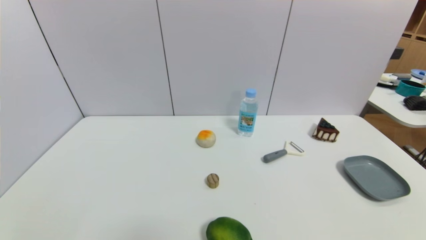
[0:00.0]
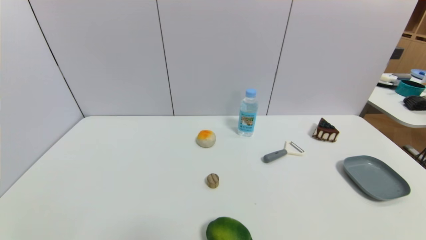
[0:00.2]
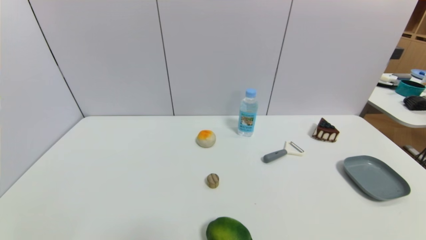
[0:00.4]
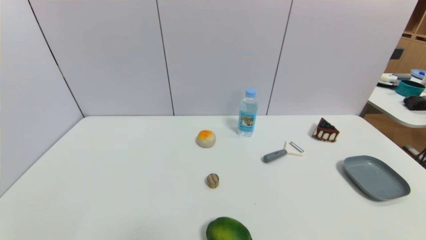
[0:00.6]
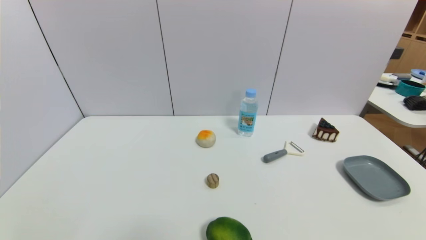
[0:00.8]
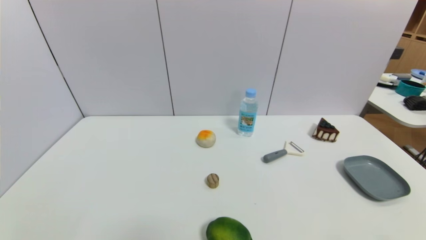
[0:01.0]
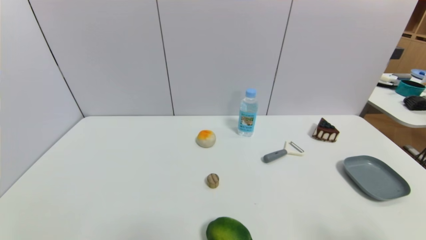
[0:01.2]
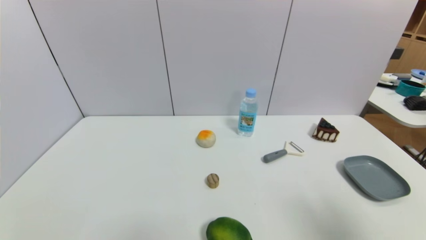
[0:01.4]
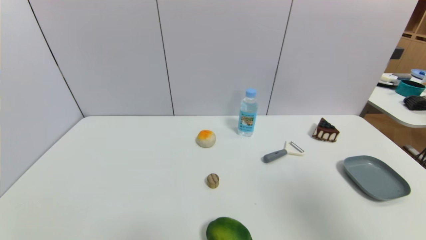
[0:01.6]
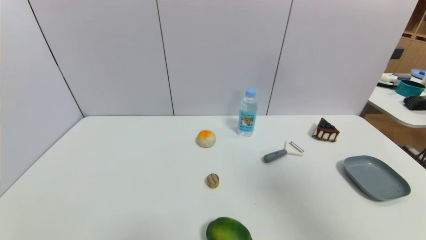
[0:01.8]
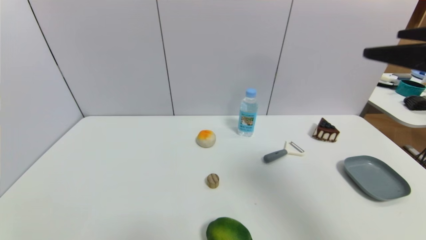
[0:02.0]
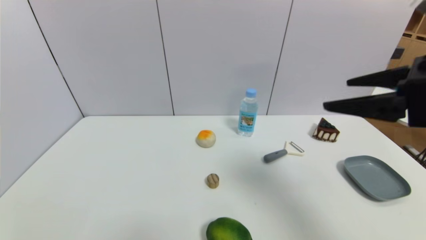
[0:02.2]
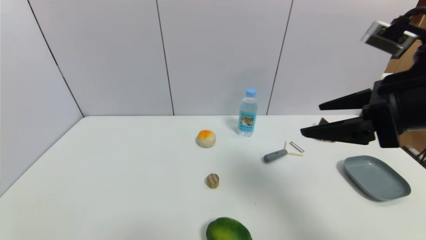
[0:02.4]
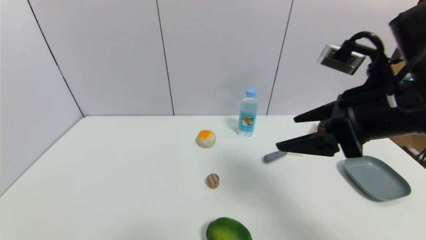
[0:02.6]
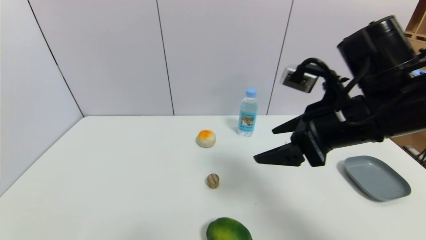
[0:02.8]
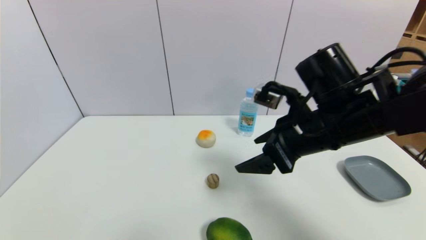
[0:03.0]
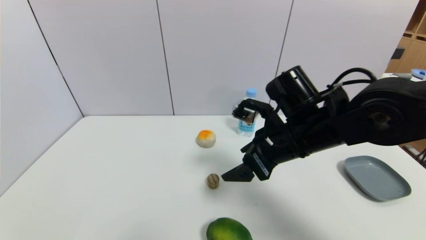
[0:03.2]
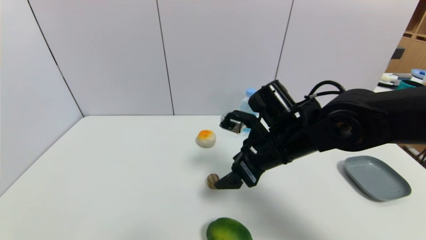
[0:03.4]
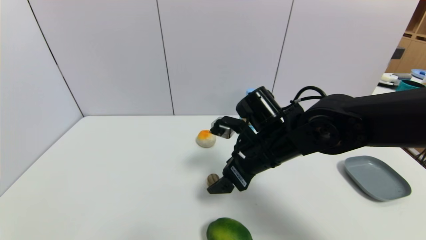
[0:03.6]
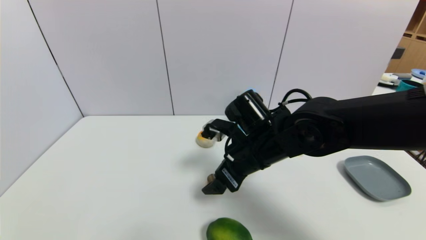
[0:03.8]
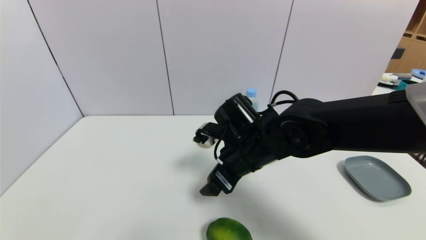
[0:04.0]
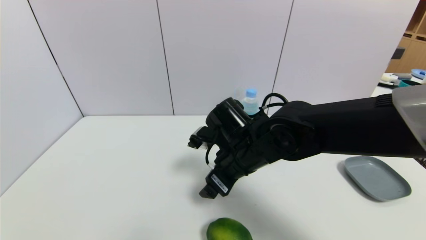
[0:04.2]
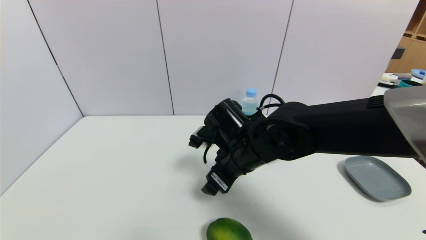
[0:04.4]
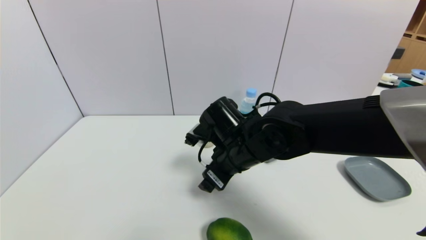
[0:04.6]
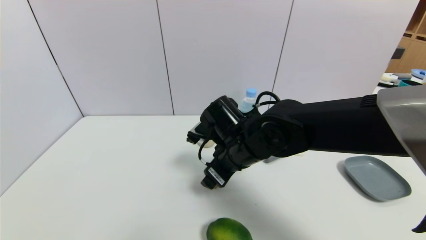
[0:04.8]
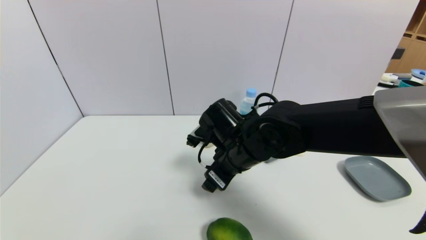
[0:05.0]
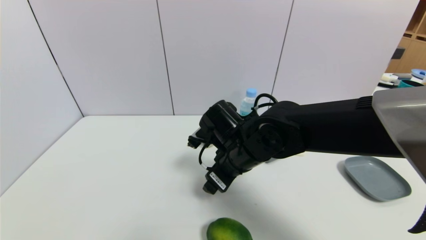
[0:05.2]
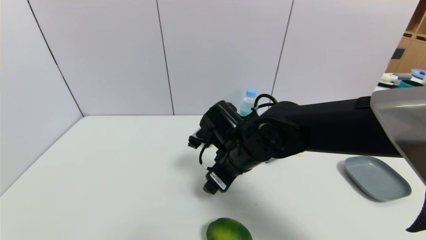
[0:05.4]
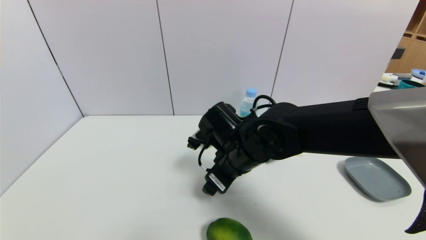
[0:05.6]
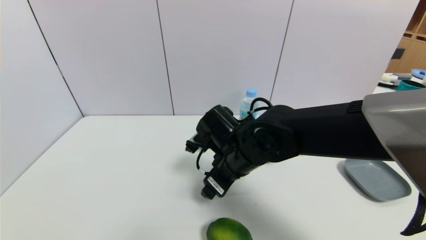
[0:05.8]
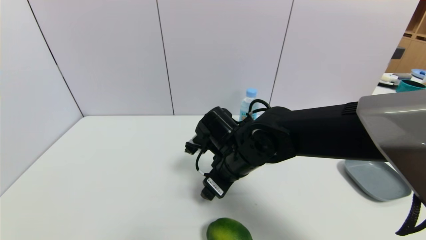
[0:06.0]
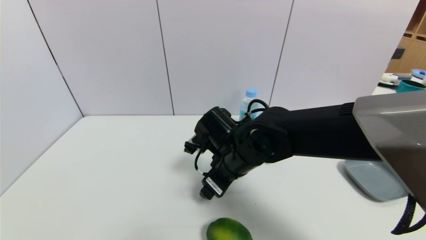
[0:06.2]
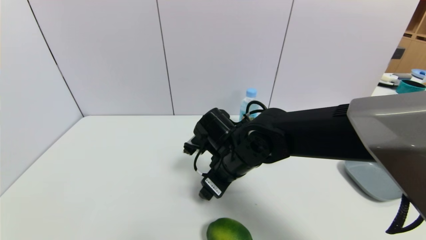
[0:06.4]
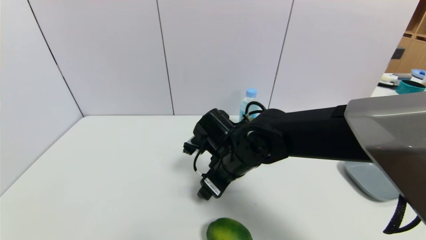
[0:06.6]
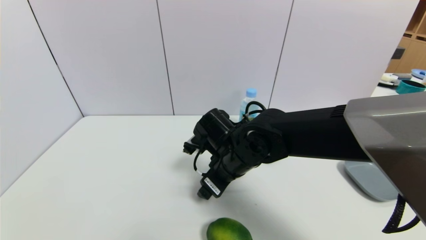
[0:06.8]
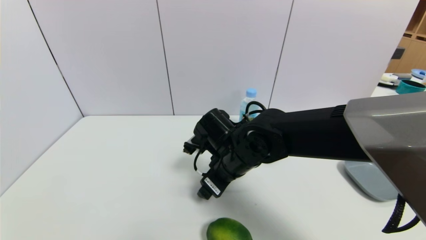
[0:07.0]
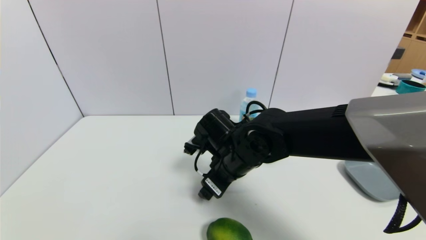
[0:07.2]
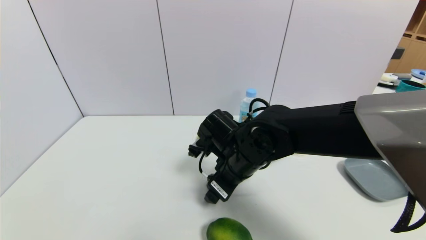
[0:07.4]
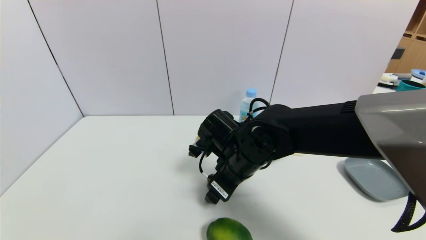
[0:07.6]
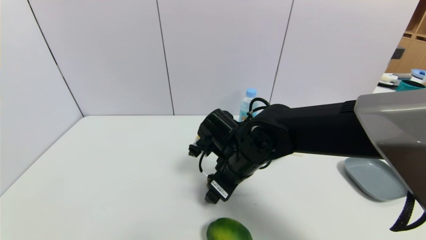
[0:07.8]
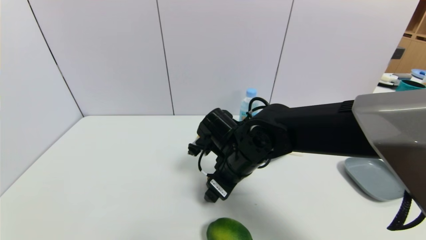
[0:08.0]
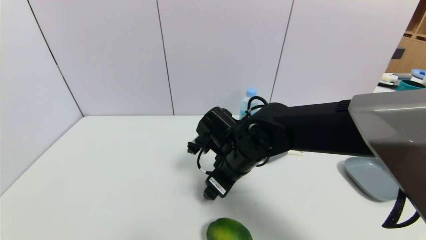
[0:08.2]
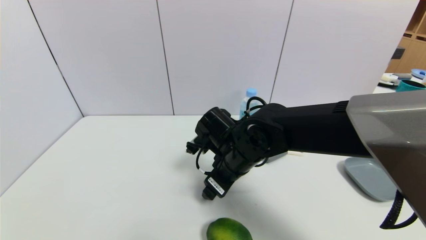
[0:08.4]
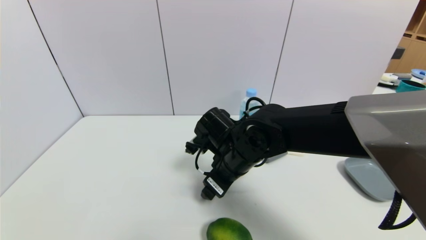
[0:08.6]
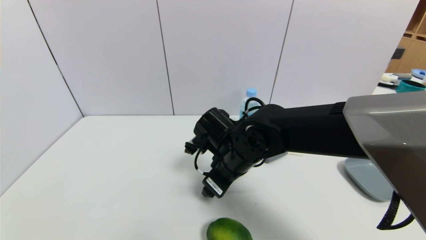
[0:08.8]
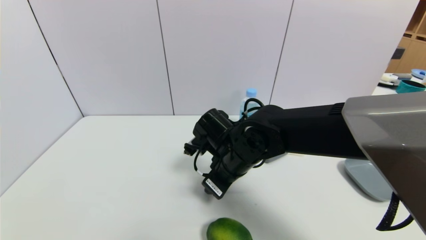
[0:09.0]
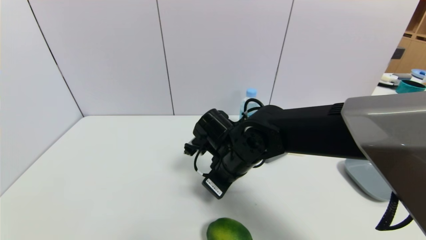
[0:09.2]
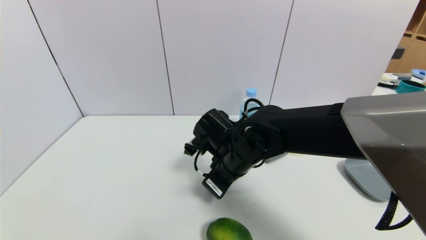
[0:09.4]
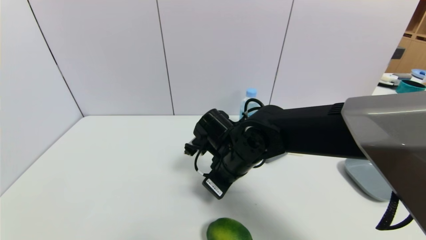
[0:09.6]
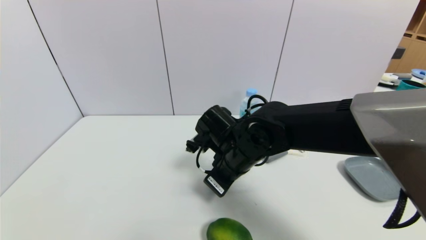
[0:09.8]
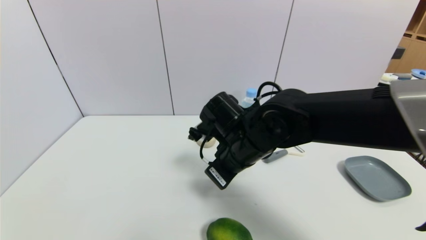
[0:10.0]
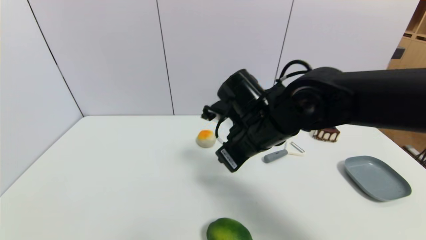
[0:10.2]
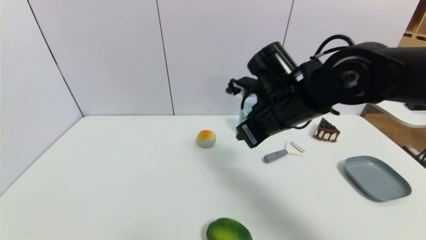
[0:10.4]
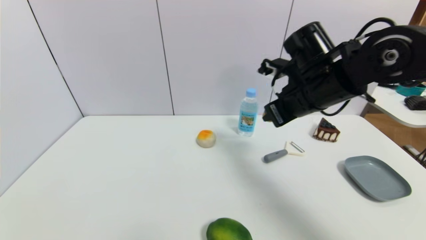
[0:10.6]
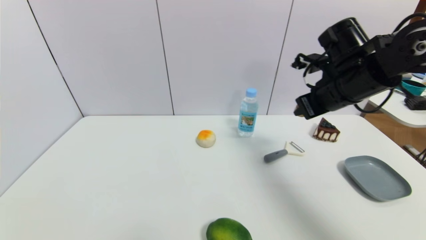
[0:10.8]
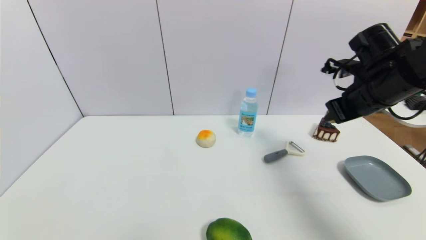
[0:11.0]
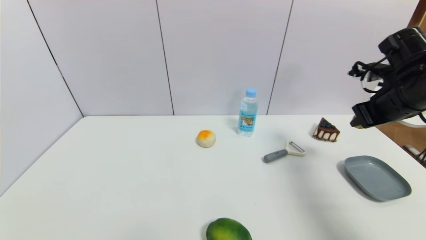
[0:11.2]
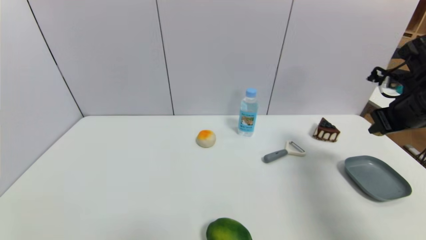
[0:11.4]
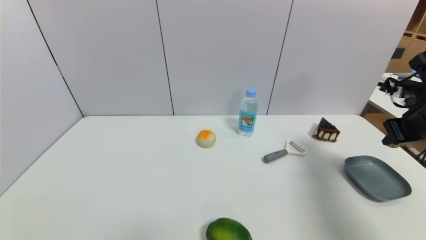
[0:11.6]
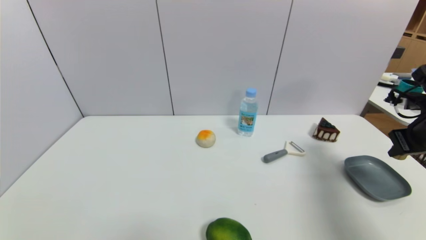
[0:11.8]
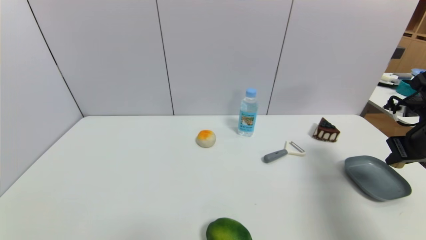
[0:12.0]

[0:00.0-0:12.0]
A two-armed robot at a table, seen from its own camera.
Task of the whole recording: use a gripper to pick the target object and place on the dish.
Step, 0:00.0 to 0:09.4: Grasp the round wooden block with the right gripper.
0:00.0 to 0:01.6: The right gripper moves upward and forward, approximately 30 cm.
0:01.6 to 0:03.0: The right gripper shifts approximately 25 cm to the left, forward and downward.
0:03.0 to 0:04.4: The right gripper heads to the left and downward, covering some 15 cm.
0:04.4 to 0:07.6: The grippers stay close to where they were, moving slightly.
0:07.6 to 0:09.0: The right gripper closes up.
0:09.0 to 0:10.4: The right gripper travels upward and to the right by approximately 15 cm, and closes up.
0:10.4 to 0:12.0: The right gripper travels to the right by roughly 25 cm.

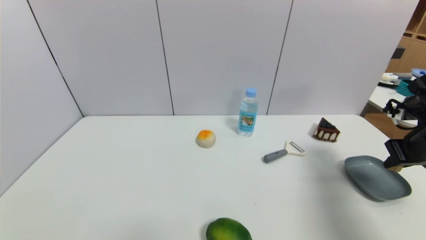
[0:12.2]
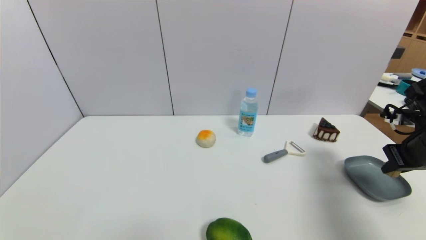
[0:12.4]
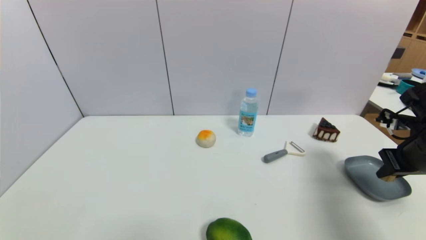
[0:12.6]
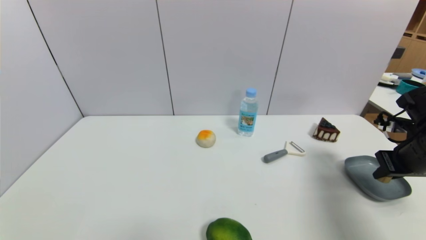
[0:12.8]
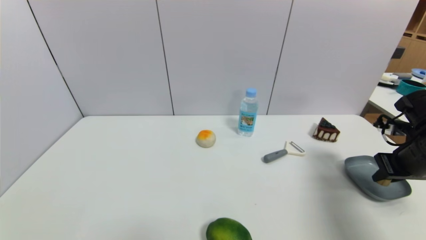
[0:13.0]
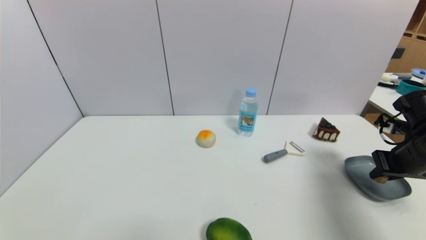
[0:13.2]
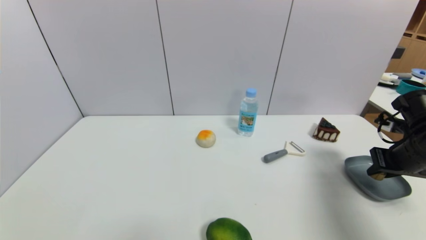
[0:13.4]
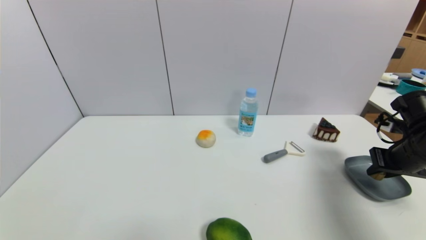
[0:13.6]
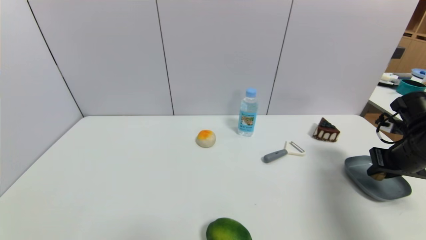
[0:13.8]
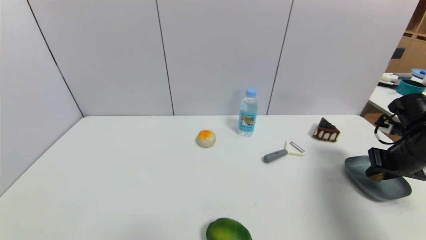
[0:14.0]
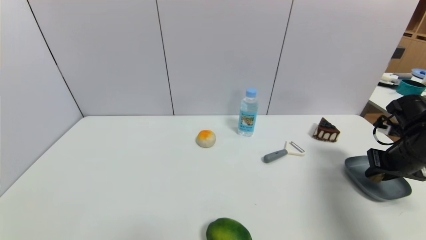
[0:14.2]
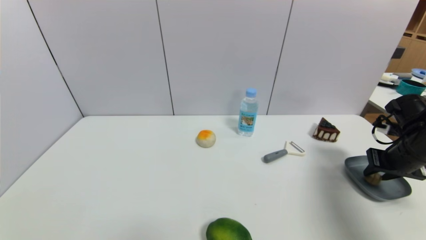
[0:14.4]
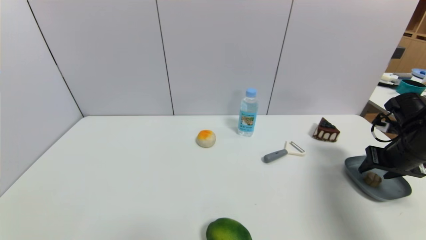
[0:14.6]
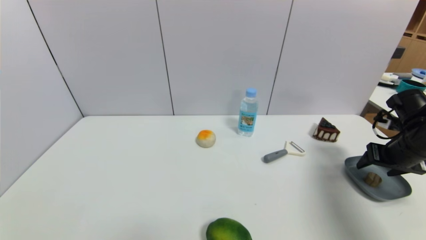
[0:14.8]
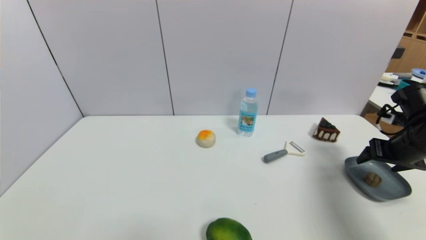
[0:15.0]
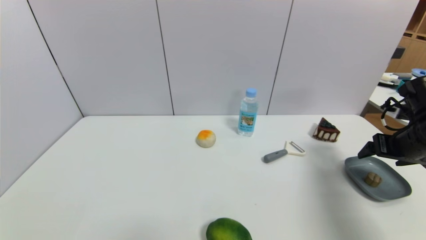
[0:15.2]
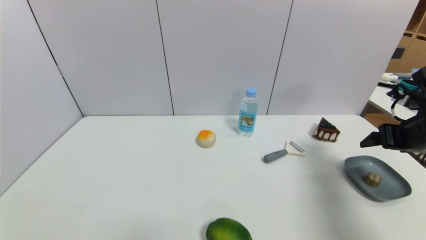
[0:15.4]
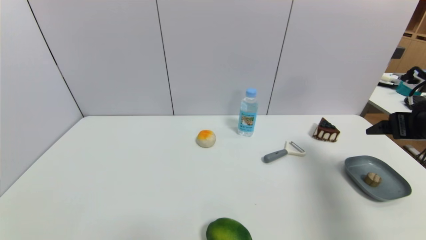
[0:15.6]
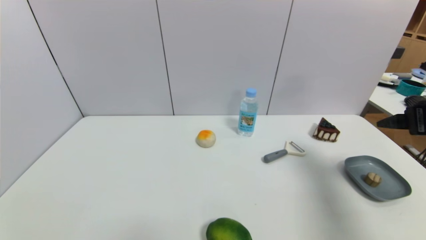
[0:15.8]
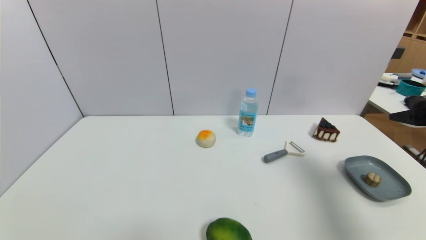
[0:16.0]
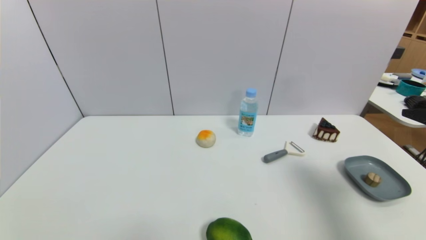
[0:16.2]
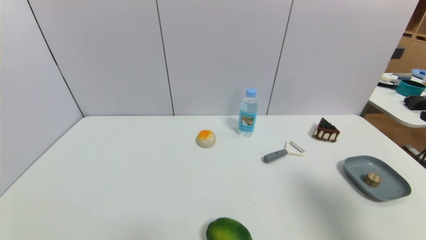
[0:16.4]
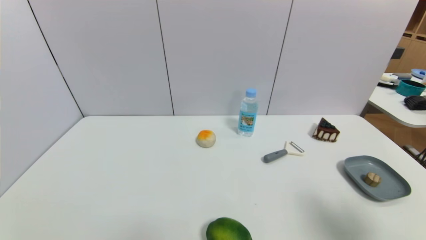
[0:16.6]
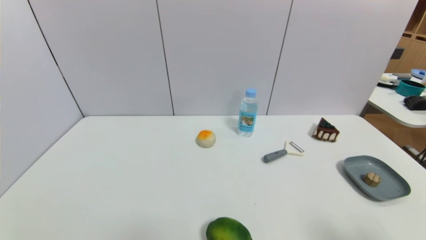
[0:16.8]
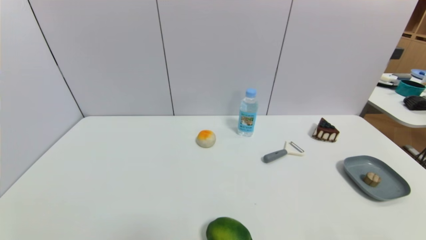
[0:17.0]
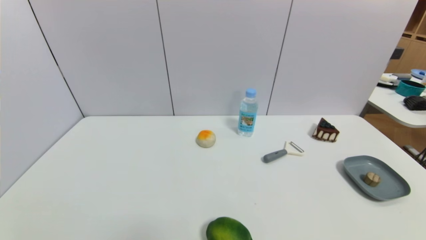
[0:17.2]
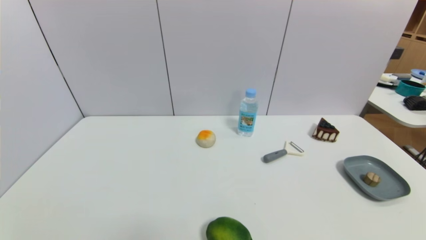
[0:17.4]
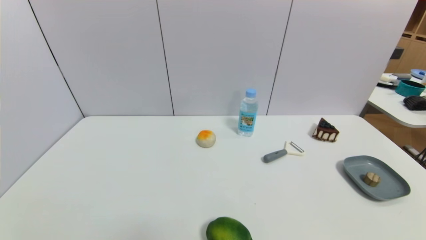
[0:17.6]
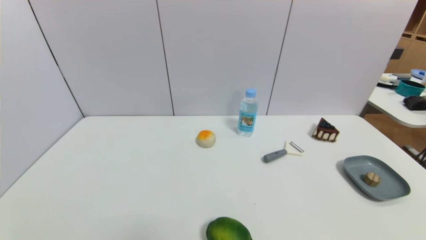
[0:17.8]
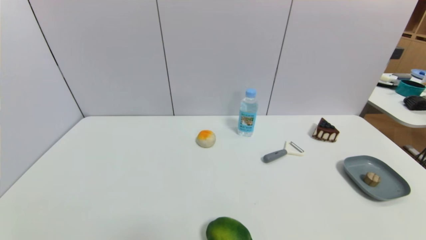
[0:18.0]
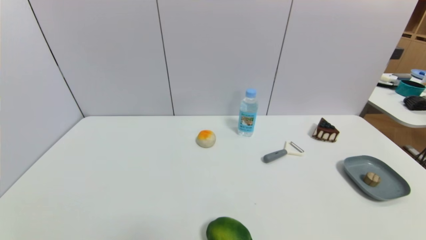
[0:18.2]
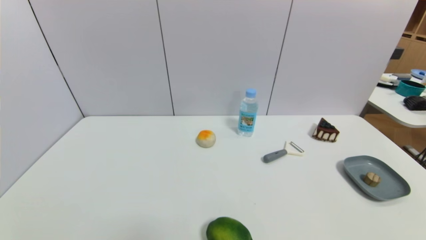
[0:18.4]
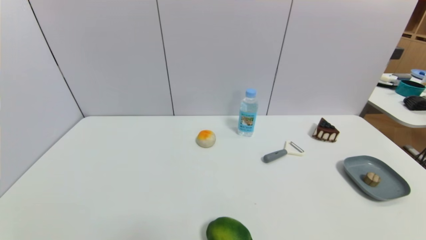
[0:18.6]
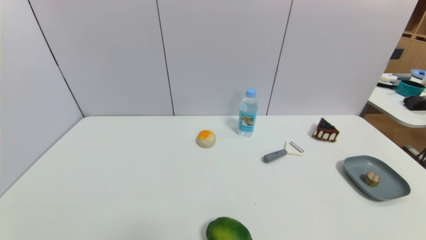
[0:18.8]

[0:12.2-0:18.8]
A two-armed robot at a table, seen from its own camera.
Task of the whole recording: use a gripper to pick the target object and place on the dish.
Step, 0:12.2 to 0:15.0: Place the round wooden block on the dish with the right gripper.
0:12.2 to 0:13.8: There are only small adjustments of the grippers.
0:13.8 to 0:15.4: The right gripper is displaced upward by some 5 cm, and opens its fingers.
0:15.4 to 0:17.2: The right gripper travels backward by about 30 cm.
